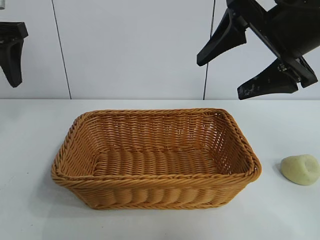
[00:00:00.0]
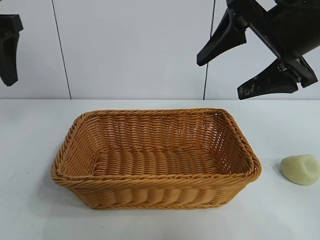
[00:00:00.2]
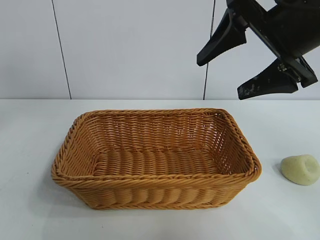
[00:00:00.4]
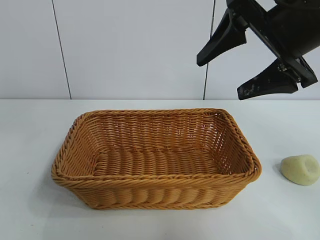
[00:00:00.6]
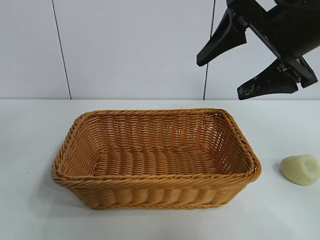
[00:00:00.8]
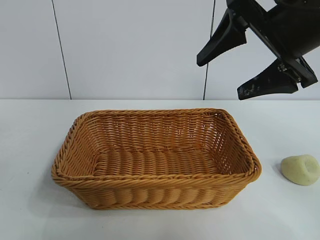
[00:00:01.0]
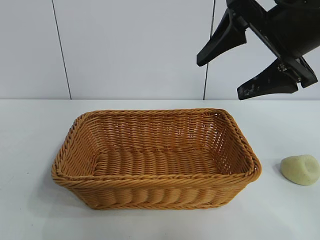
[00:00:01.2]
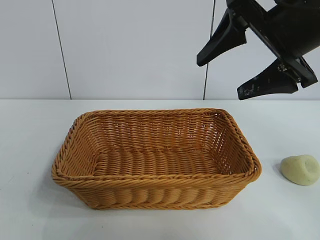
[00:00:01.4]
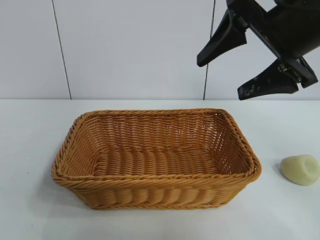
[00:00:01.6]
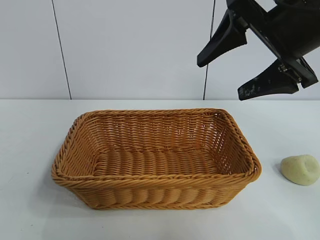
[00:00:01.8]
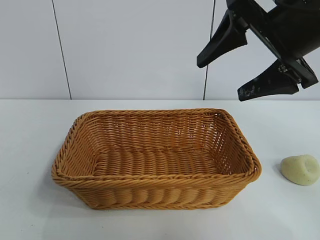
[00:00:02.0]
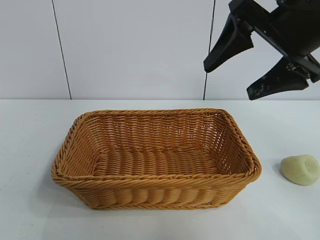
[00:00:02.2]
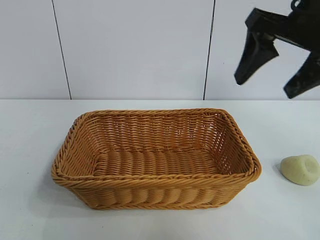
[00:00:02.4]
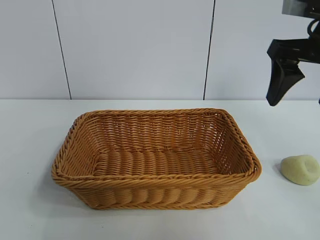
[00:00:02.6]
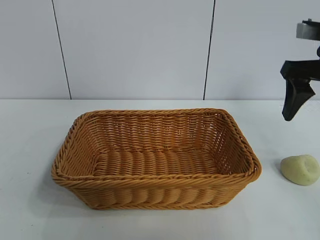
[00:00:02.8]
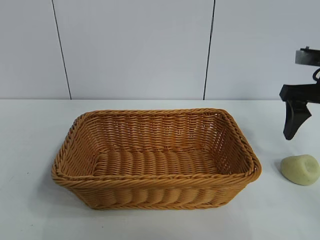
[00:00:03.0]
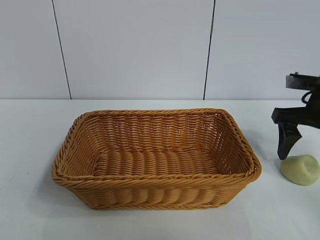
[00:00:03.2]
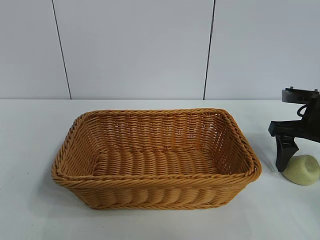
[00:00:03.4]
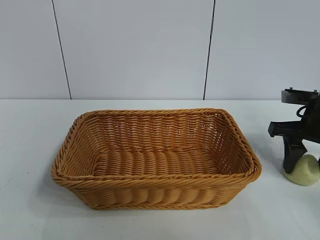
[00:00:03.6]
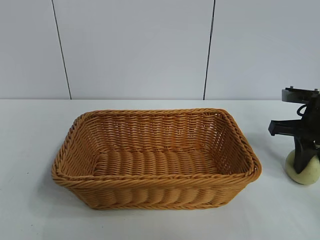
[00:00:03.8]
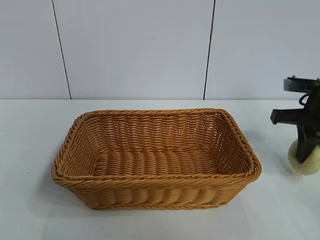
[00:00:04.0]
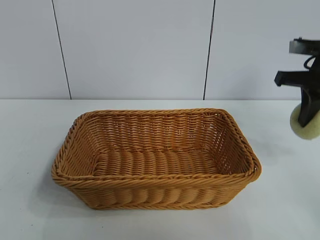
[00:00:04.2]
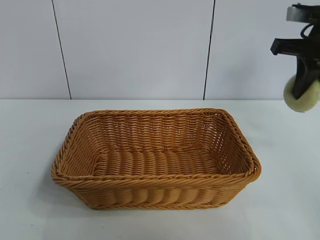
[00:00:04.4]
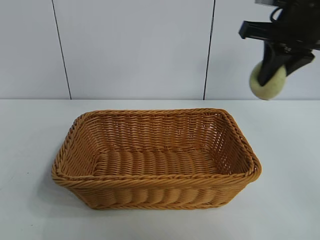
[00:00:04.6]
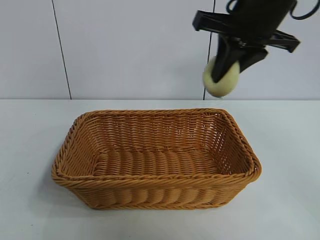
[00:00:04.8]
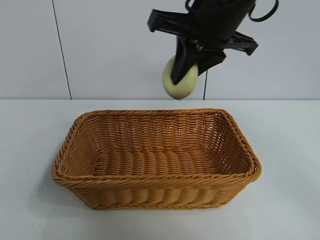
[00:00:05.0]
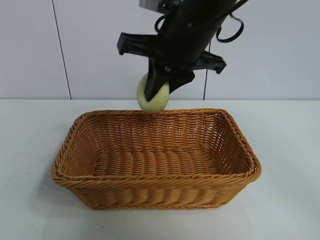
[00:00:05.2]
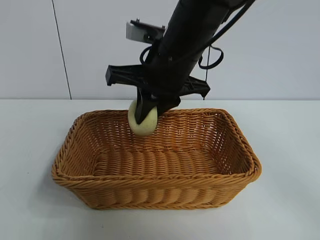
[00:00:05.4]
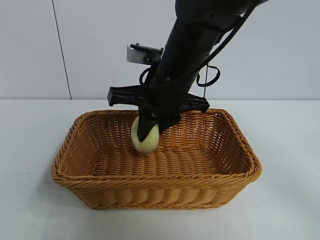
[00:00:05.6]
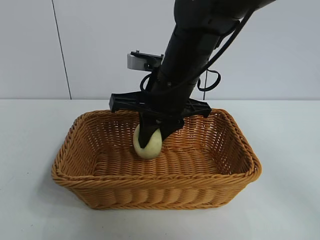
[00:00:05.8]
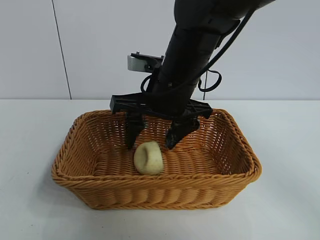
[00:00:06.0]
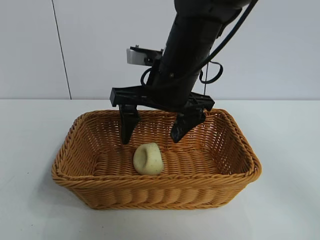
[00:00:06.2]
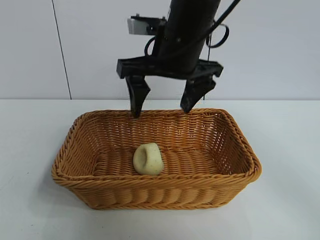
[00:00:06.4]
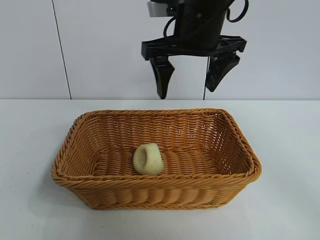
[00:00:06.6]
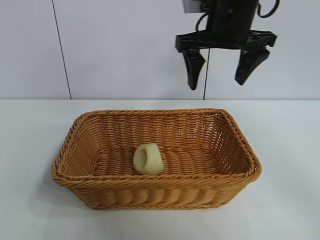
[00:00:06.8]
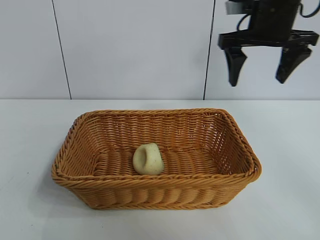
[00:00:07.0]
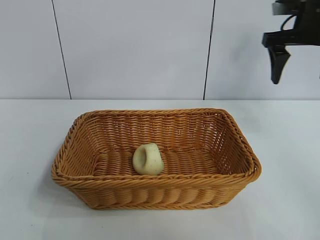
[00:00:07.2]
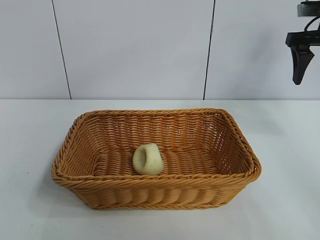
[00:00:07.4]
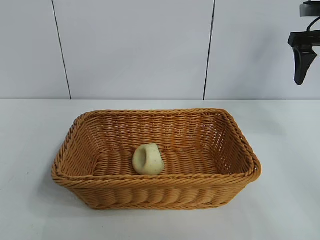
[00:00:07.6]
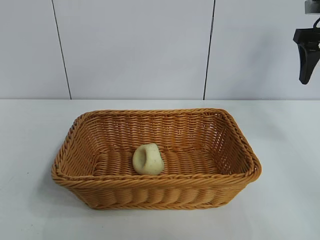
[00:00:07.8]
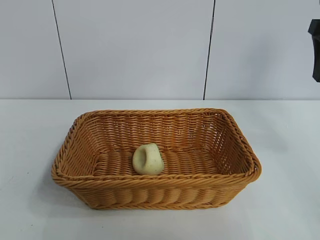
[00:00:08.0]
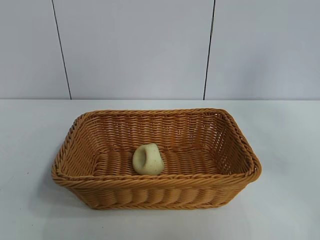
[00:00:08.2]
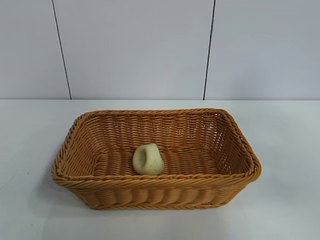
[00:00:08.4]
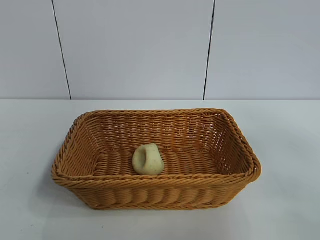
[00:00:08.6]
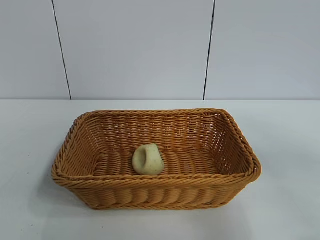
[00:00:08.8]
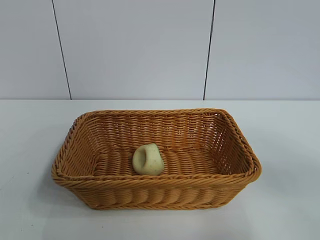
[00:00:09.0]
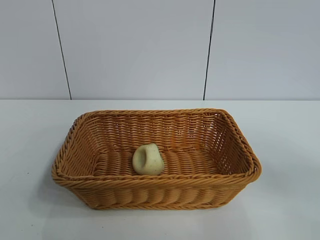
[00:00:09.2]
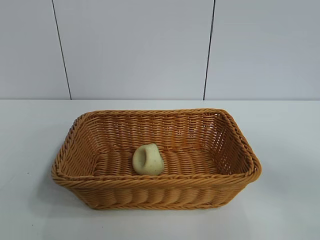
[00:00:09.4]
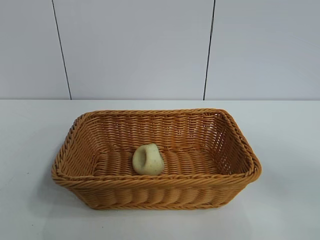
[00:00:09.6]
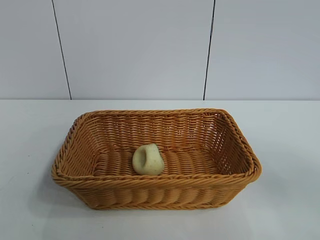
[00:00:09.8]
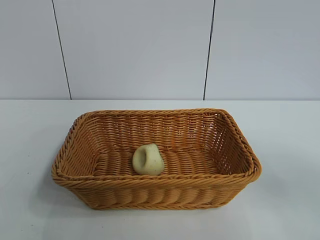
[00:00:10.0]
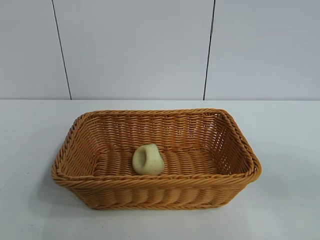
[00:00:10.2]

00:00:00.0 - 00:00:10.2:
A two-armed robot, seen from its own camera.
Task of the whole recording: pick up the egg yolk pastry and put it into the basket.
Step, 00:00:00.0 - 00:00:03.8: Grasp egg yolk pastry with right gripper.
Step, 00:00:04.0 - 00:00:06.0: Place the egg yolk pastry in the basket with right gripper.
